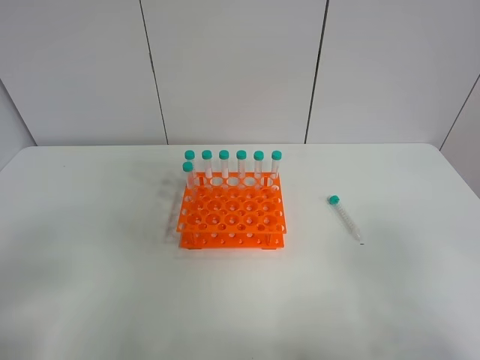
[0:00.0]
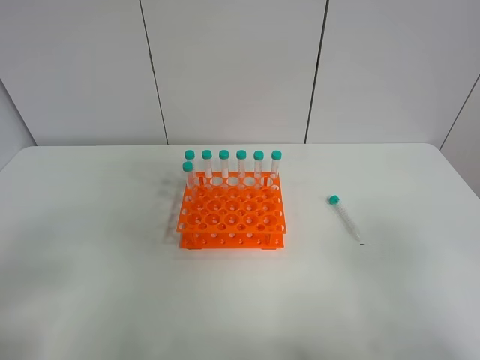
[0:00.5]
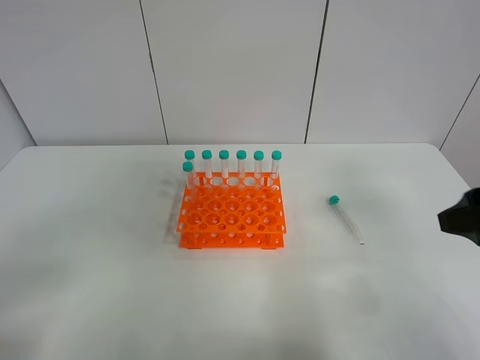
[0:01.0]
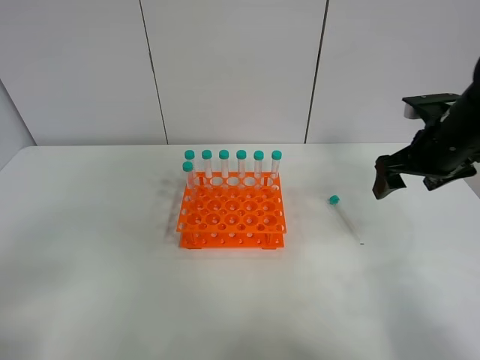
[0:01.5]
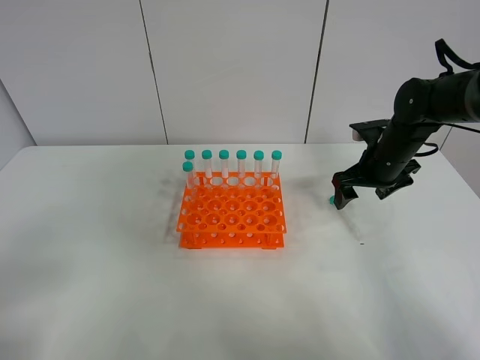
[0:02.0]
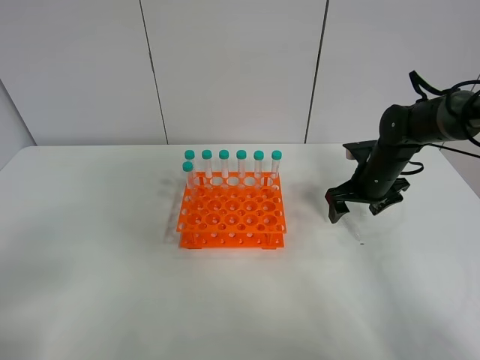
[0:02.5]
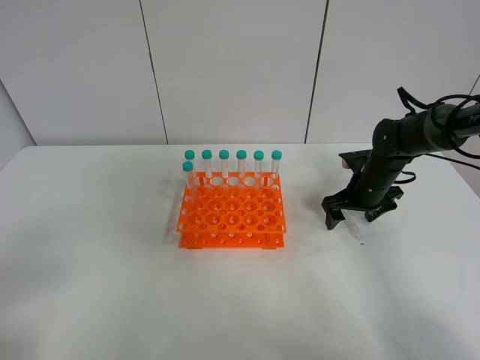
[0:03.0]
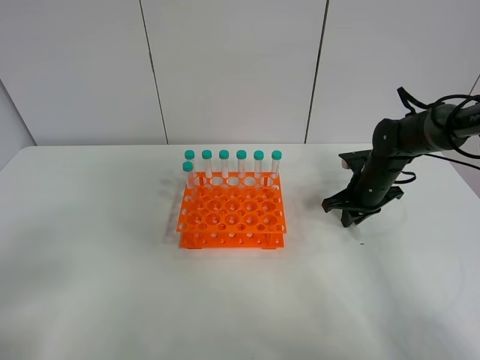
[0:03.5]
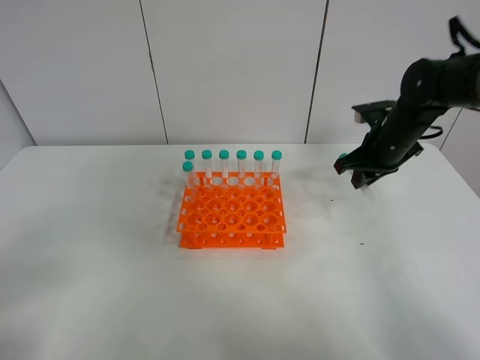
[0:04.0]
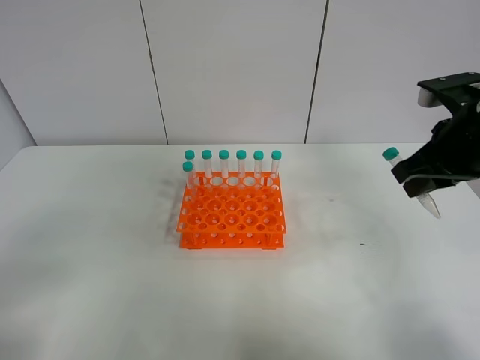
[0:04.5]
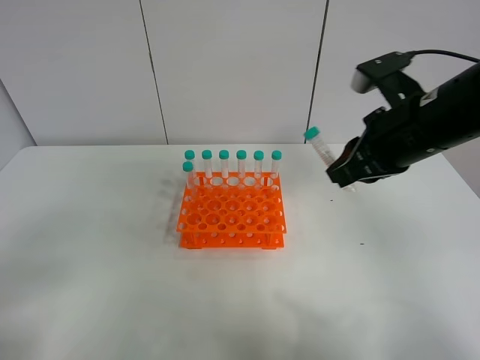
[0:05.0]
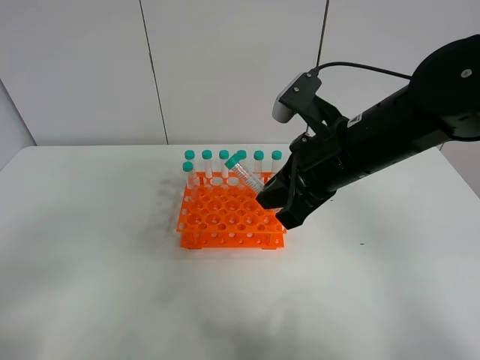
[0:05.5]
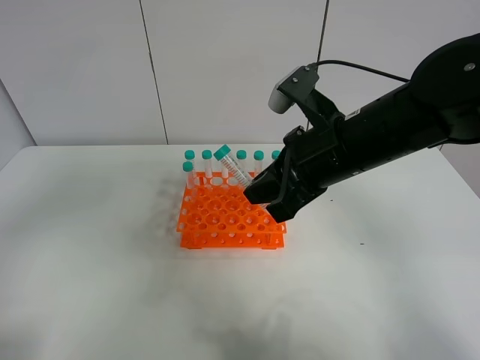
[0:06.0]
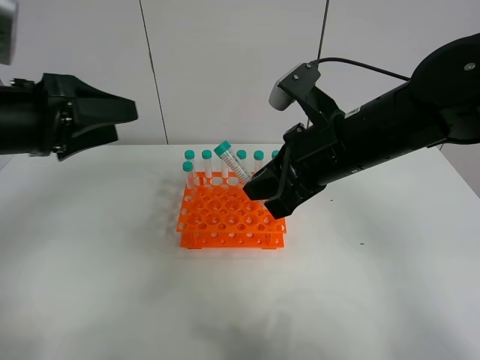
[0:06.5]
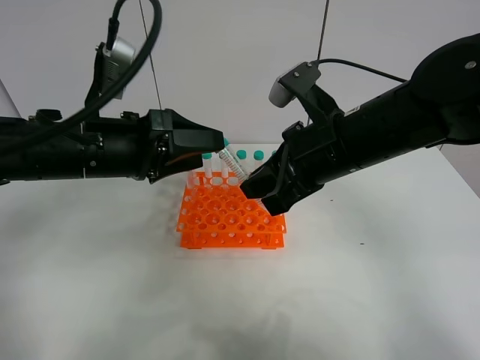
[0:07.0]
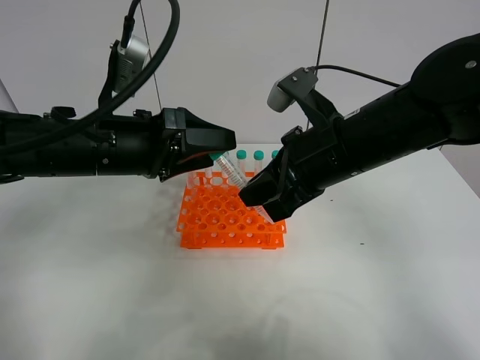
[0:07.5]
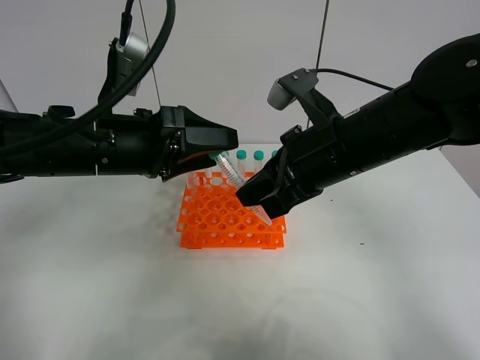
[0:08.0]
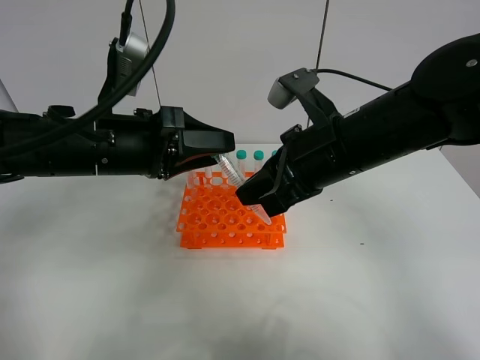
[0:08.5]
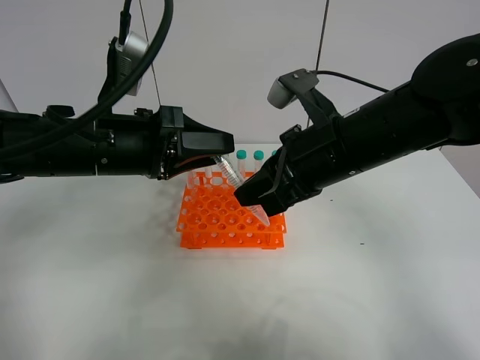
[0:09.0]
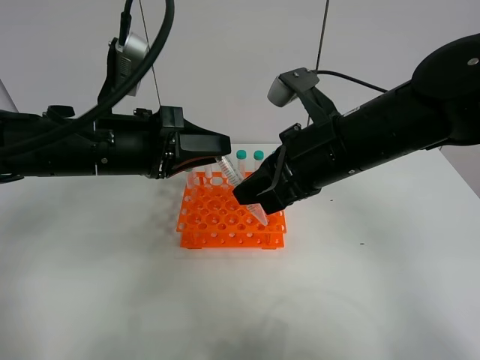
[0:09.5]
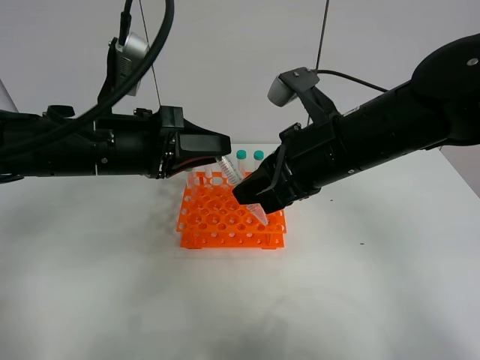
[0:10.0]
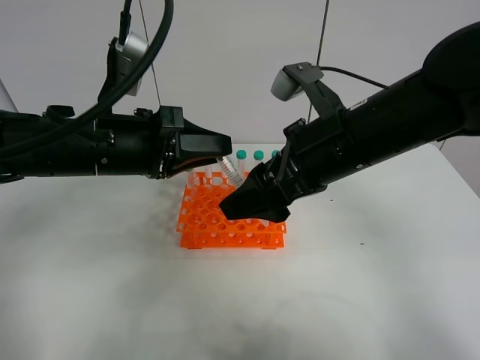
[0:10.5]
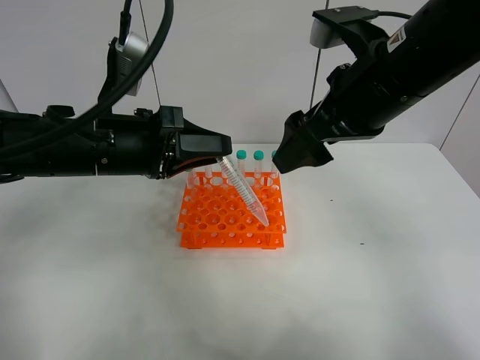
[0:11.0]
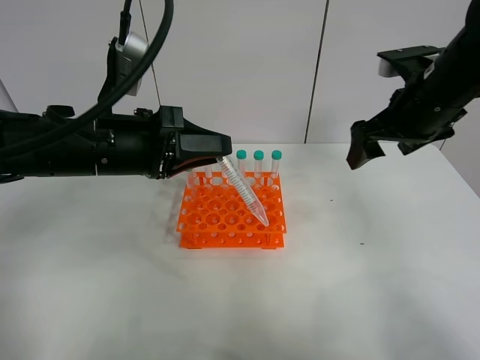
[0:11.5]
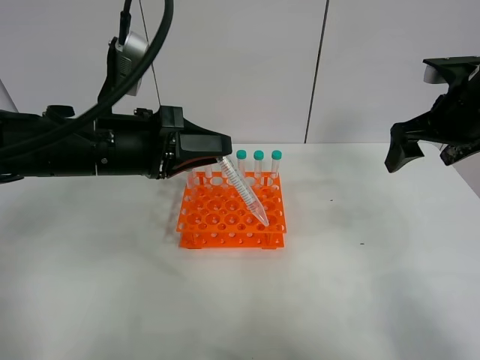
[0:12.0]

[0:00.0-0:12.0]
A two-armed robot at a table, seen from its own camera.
Task of the whole recording: Put the test tube on the table back onto the test tube rack.
Step, 0:00.0 to 0:03.5: Pick up the test tube with the right gripper.
Step, 0:04.0 to 0:10.0: Move the test tube from the right gripper to the left gripper.
0:00.0 to 0:02.0: The right gripper heads forward, covering about 40 cm.
0:02.0 to 0:04.0: The right gripper goes downward and returns, some 5 cm each way, and closes up.
0:04.0 to 0:06.0: The left gripper moves forward and upward, about 10 cm. The right gripper travels backward, to the left and upward by about 20 cm.
0:06.0 to 0:08.0: The left gripper moves forward, to the right and downward, approximately 25 cm.
0:08.0 to 0:10.0: The left gripper closes its fingers.
0:10.0 to 0:12.0: The right gripper is displaced to the right and forward by approximately 20 cm, and opens up.

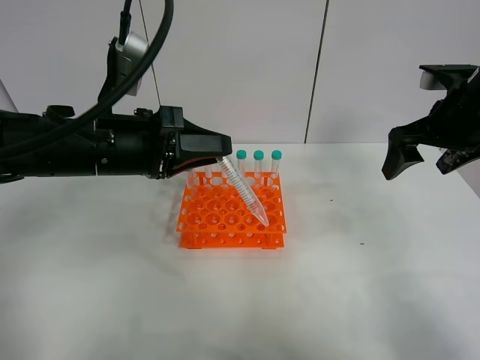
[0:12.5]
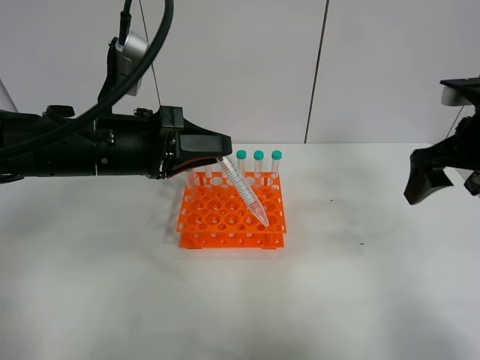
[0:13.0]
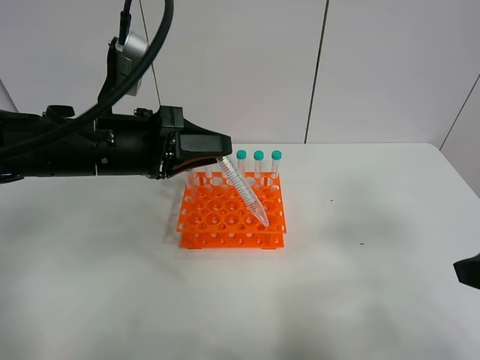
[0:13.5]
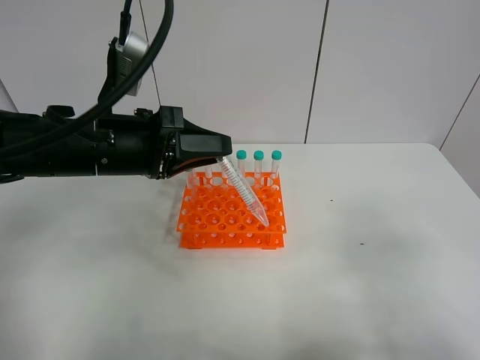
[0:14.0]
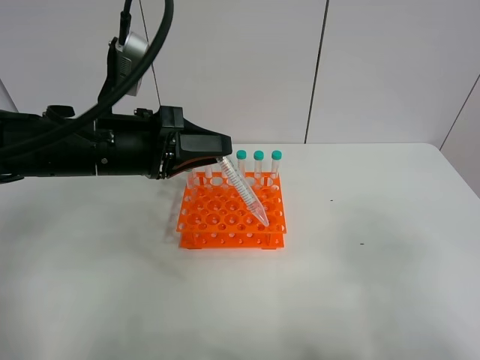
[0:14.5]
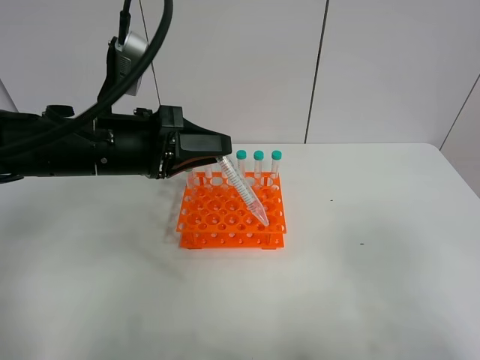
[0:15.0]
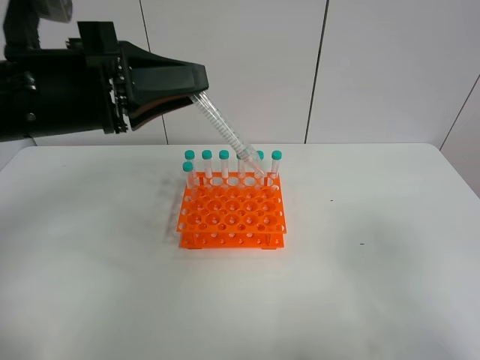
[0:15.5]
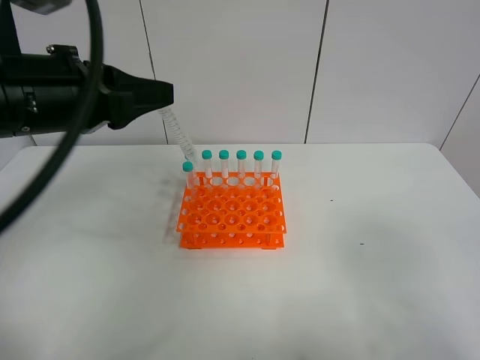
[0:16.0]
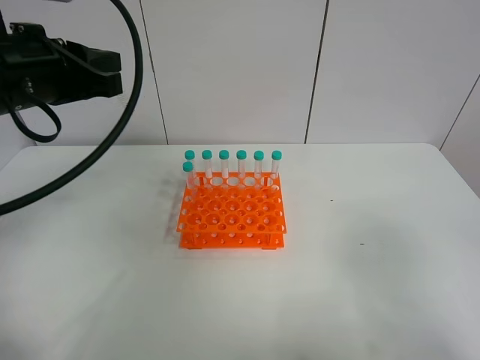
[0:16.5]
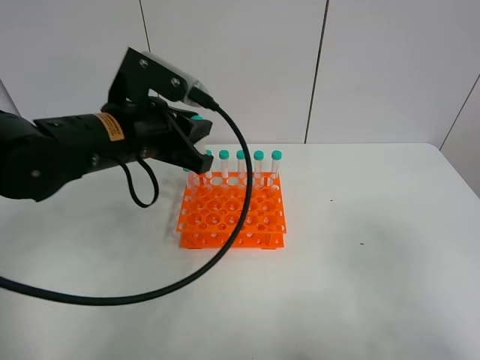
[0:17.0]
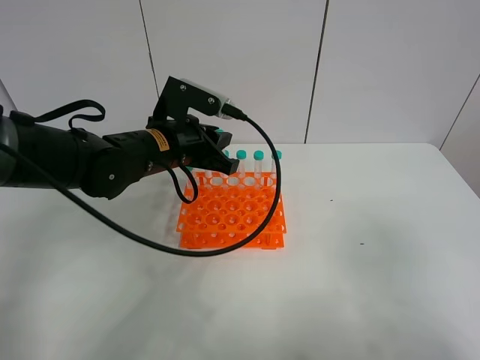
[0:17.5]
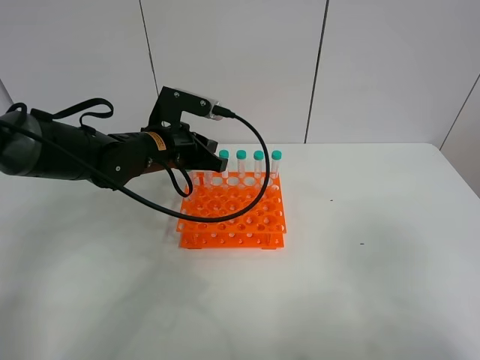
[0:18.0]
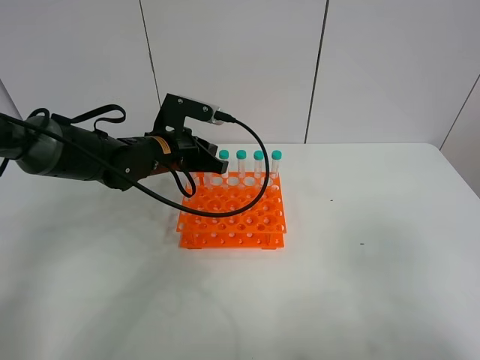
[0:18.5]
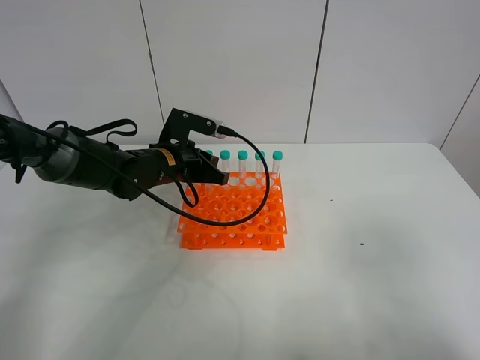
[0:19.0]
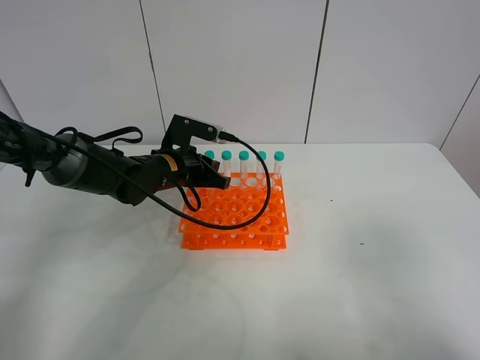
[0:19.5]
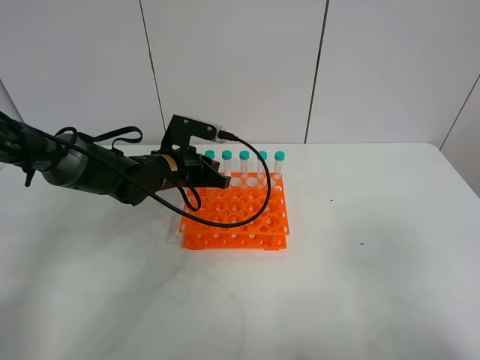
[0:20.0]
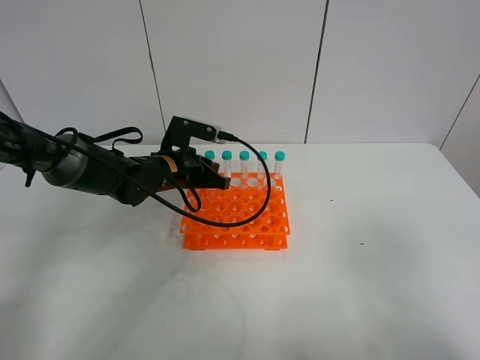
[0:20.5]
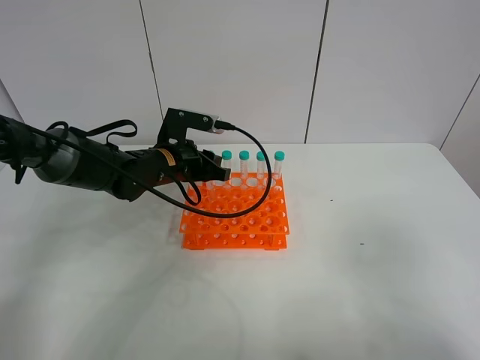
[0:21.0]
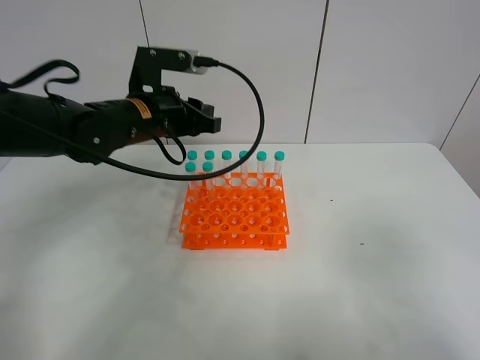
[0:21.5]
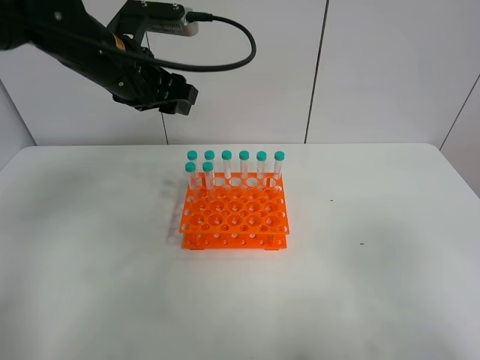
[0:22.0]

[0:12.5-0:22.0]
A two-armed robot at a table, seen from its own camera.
Task of the whole recording: Put the test tube on the table back onto the test tube rack.
Step, 0:12.5 to 0:21.0: Place the test tube on the test tube rack with the left gripper.
0:12.5 to 0:14.5: The right gripper travels backward by some 30 cm.
0:14.5 to 0:16.5: The left gripper travels upward and to the left by about 10 cm.
0:16.5 to 0:18.0: The left gripper moves downward, forward and to the right, roughly 20 cm.
0:18.0 to 0:20.0: The left gripper shifts roughly 5 cm downward.
0:20.0 to 0:22.0: The left gripper is displaced upward by roughly 20 cm, and opens up.

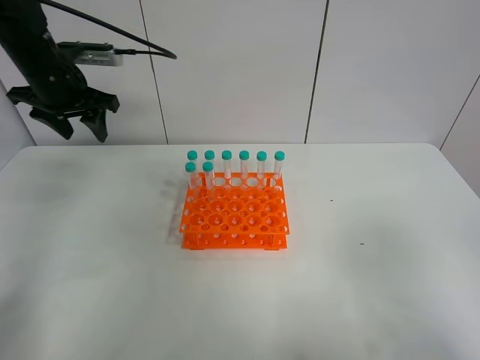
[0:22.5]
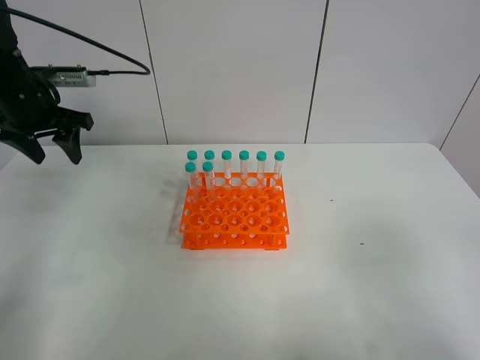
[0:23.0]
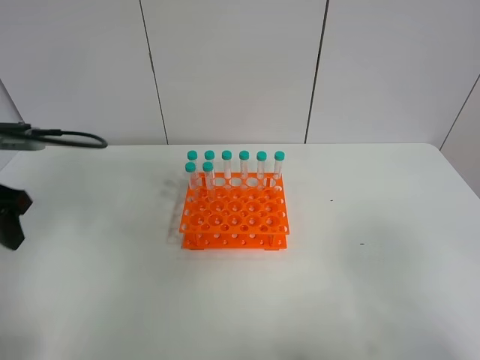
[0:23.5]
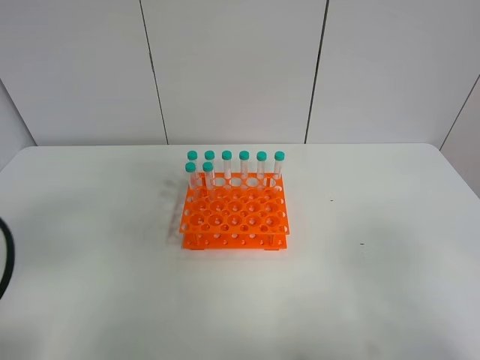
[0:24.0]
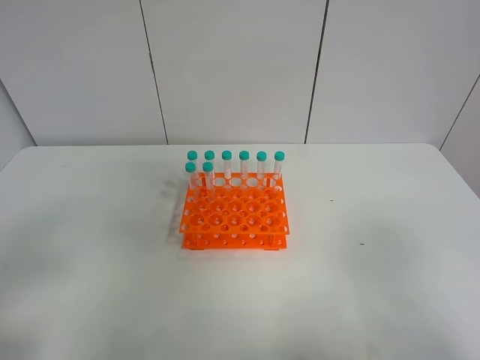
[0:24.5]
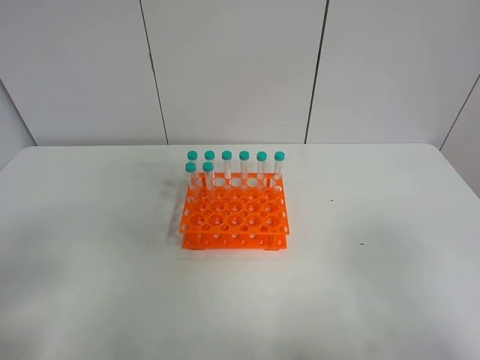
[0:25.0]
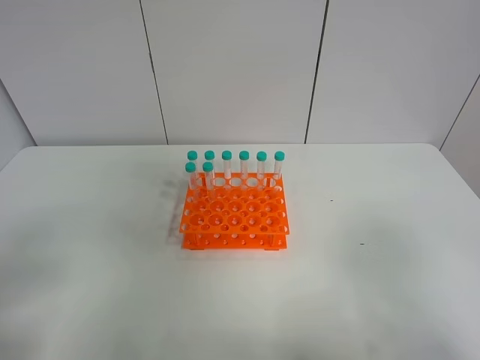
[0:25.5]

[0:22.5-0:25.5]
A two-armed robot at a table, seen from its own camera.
Task of the whole recording: Put the test tube on the table back onto the test tube rack.
0:22.5 to 0:24.0: The left gripper heads backward, covering about 35 cm.

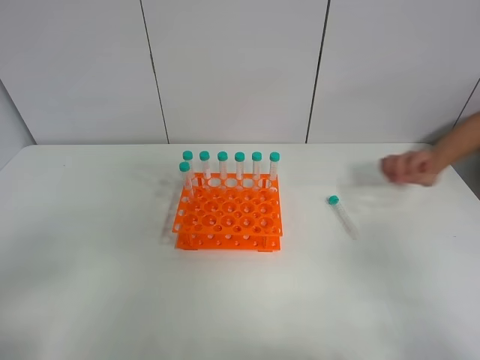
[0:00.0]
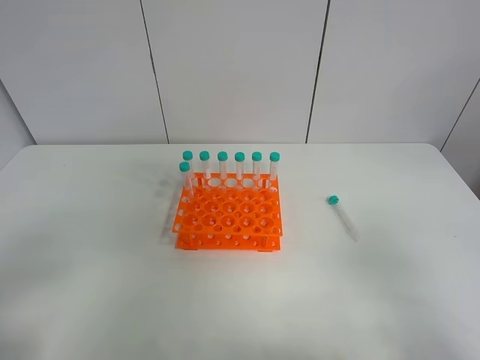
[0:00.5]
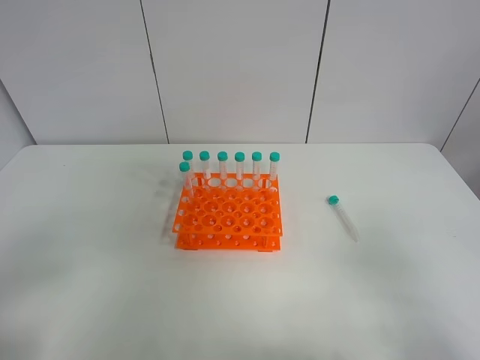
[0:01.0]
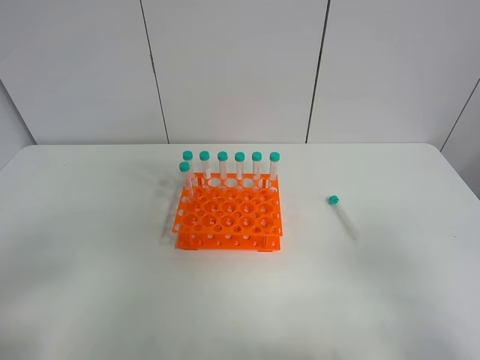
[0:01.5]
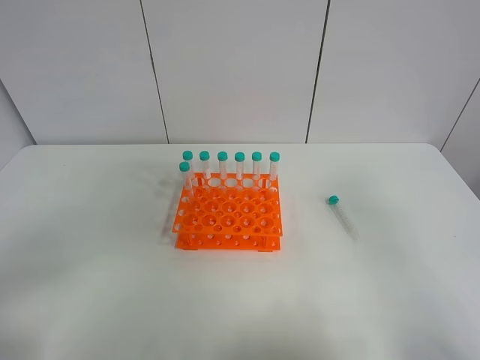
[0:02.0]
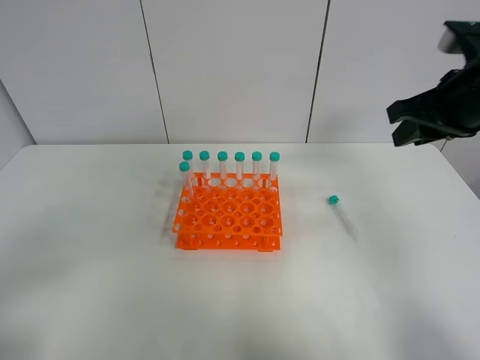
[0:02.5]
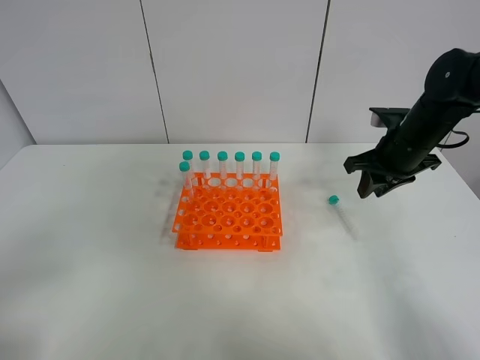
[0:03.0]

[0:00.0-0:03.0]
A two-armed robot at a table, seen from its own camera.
Task of the whole recording: Put the test tube on the table back onto the test tube rack.
0:00.0 to 0:01.5: Neither gripper changes place.
0:01.5 to 0:03.0: The right gripper heads forward, covering approximately 35 cm.
